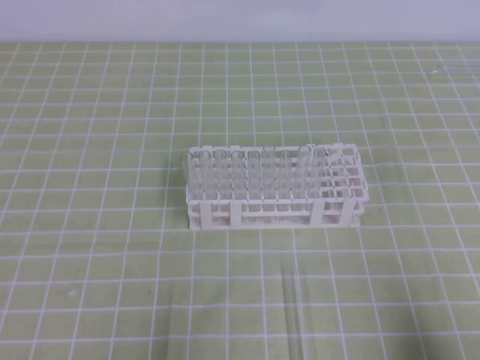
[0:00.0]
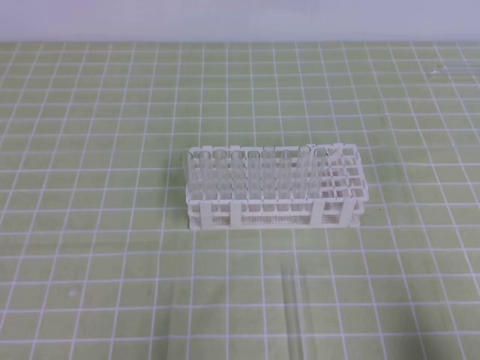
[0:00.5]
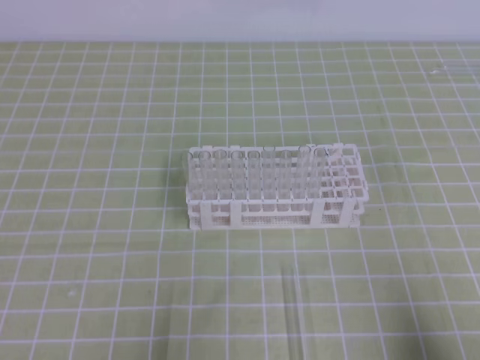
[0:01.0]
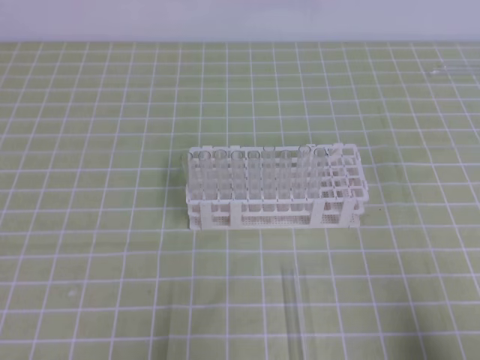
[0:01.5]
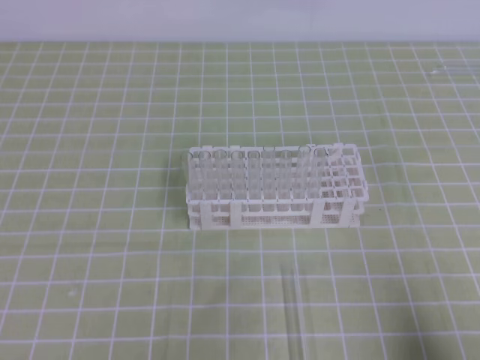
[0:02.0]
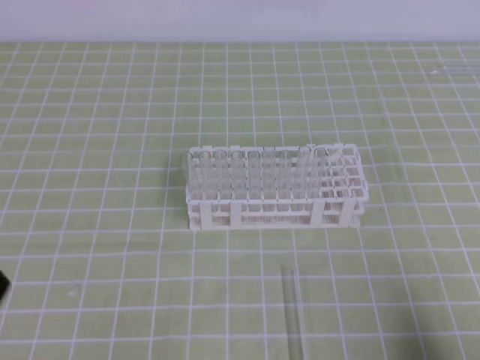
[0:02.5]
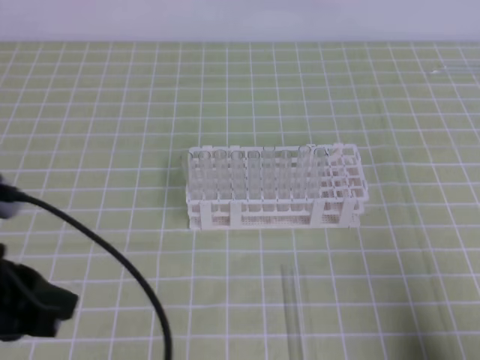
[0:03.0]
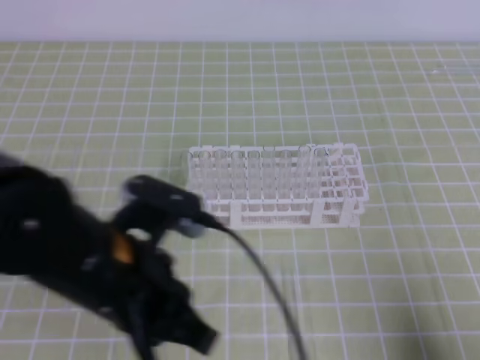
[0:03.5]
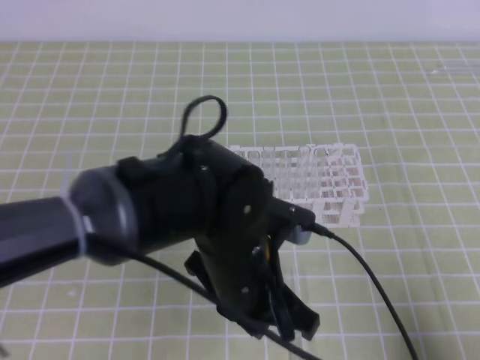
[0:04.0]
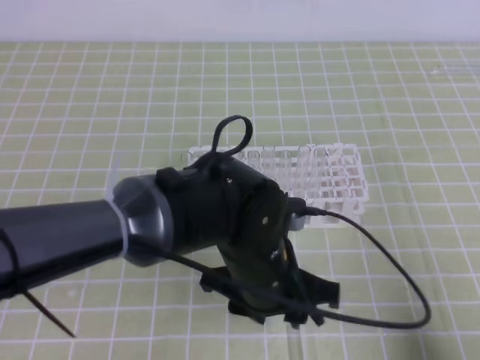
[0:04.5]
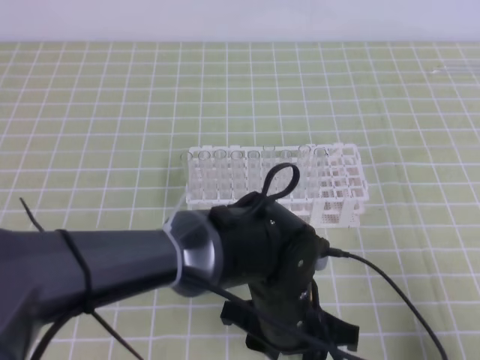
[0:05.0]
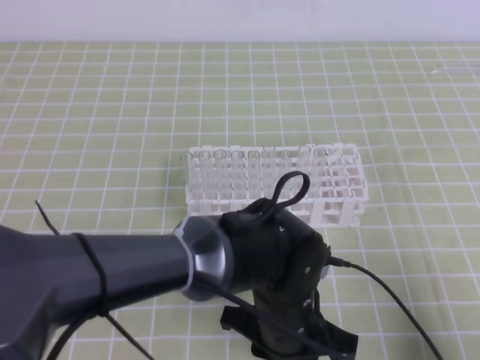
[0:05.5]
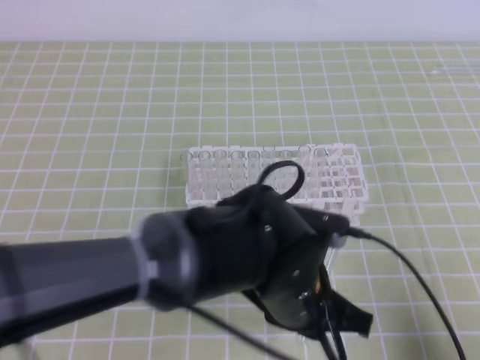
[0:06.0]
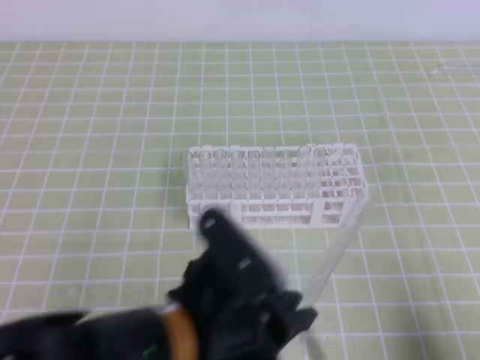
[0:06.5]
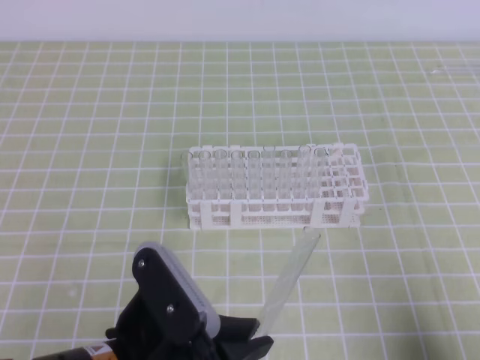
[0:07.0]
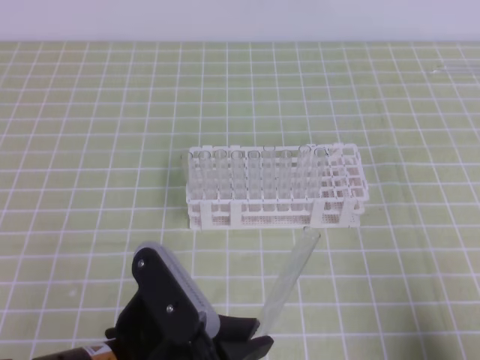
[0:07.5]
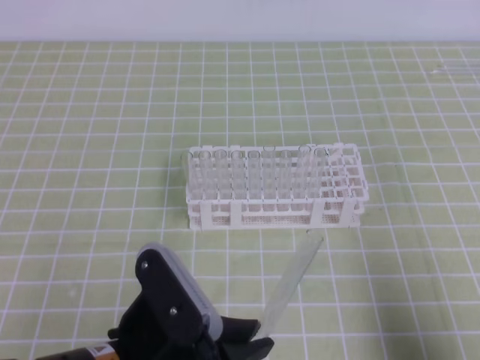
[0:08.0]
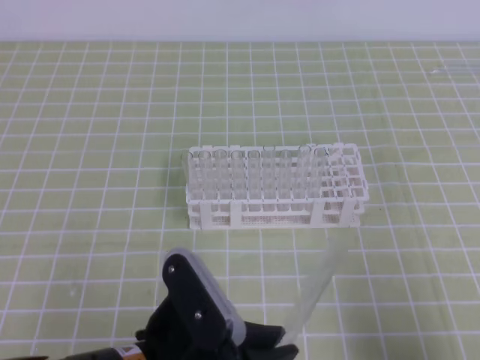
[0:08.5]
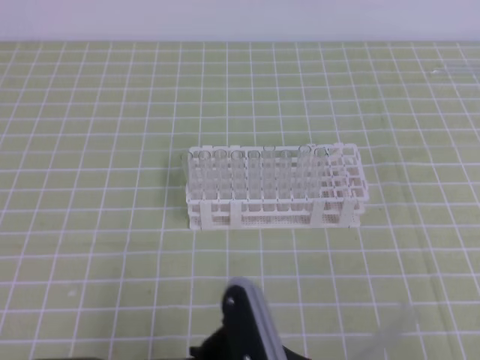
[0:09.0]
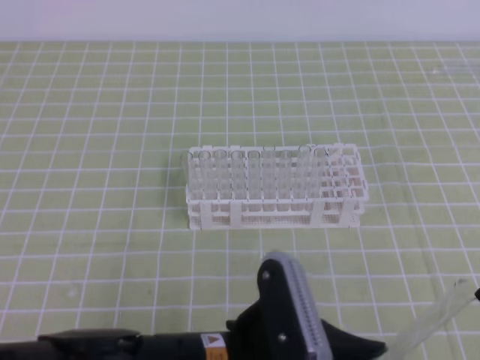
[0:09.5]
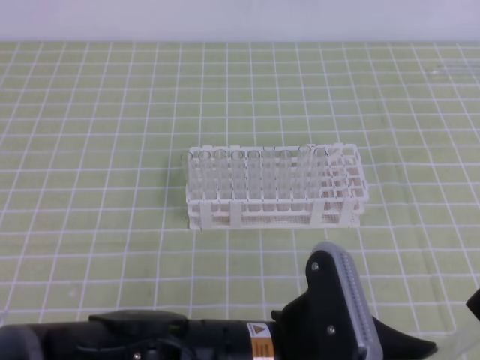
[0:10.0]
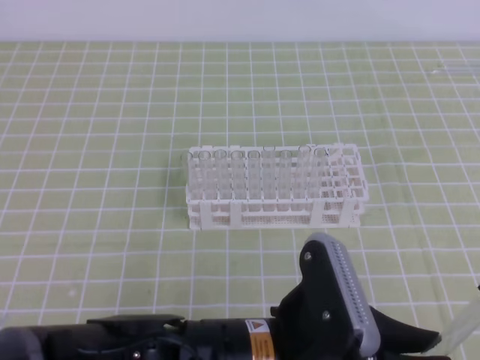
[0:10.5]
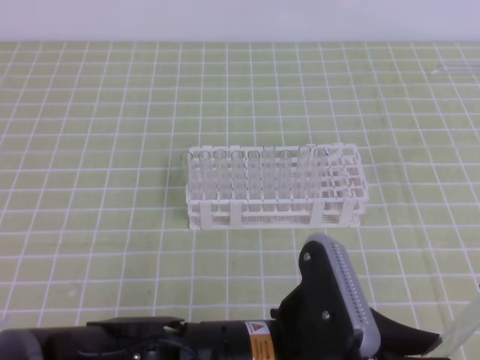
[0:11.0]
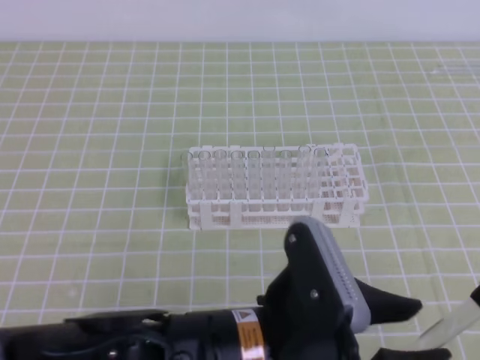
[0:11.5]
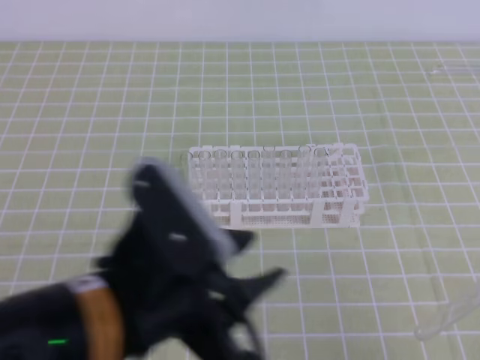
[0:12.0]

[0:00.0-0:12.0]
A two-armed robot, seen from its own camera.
0:02.0 to 0:04.0: The left gripper travels to the right and forward by approximately 30 cm.
0:04.0 to 0:06.0: The left gripper opens and closes again.
0:06.0 to 0:08.0: The left gripper moves to the left and backward, approximately 15 cm.
0:08.0 to 0:10.0: The right gripper goes roughly 10 cm upward, and opens its fingers. The left gripper goes roughly 10 cm to the right.
0:10.0 to 0:12.0: The right gripper closes up. The left gripper moves to the left and upward, some 10 cm, and opens up.

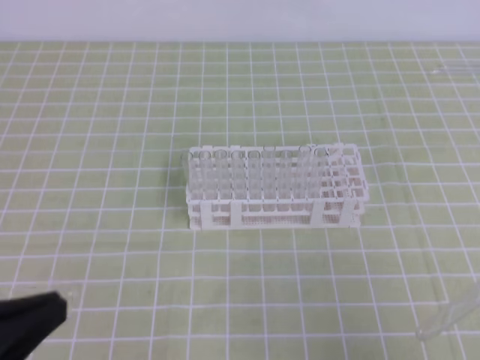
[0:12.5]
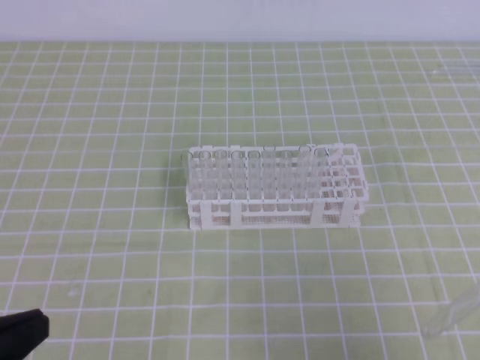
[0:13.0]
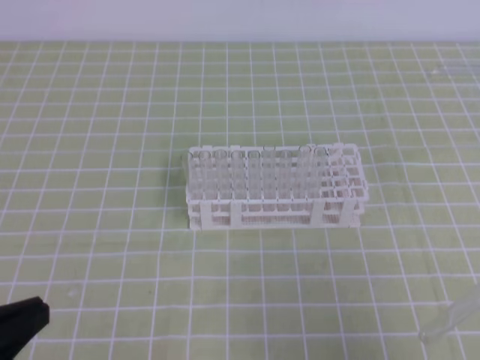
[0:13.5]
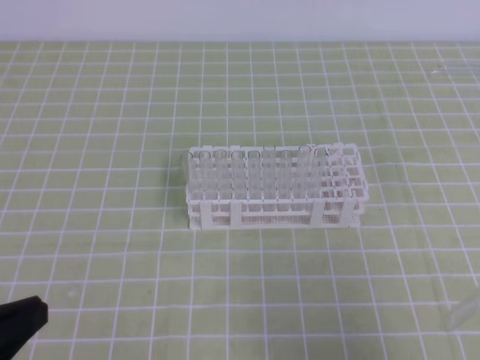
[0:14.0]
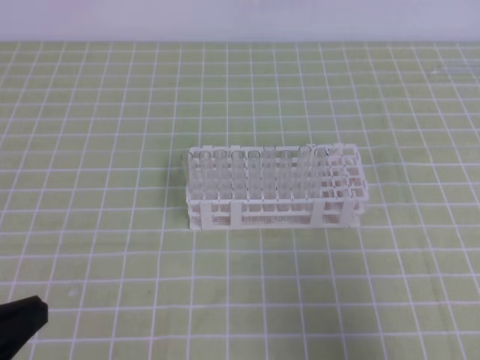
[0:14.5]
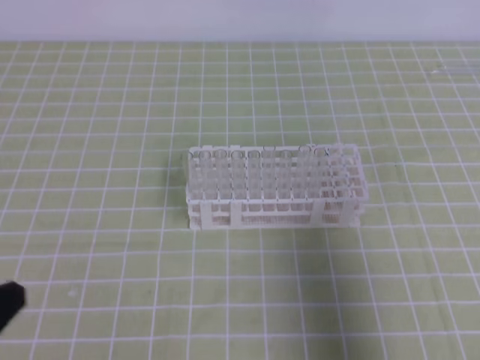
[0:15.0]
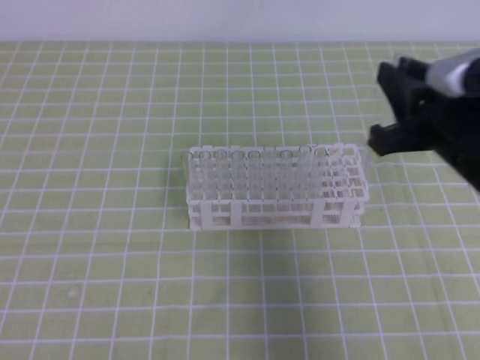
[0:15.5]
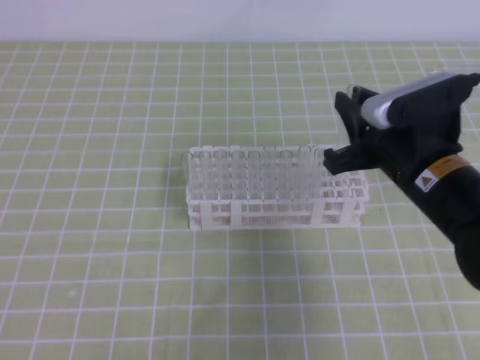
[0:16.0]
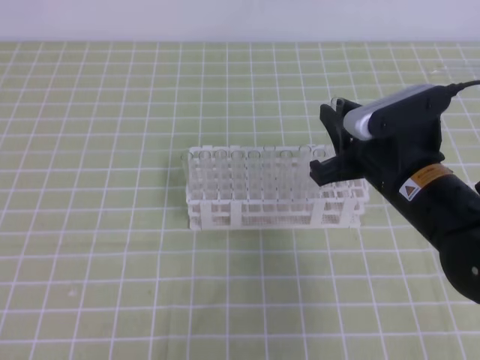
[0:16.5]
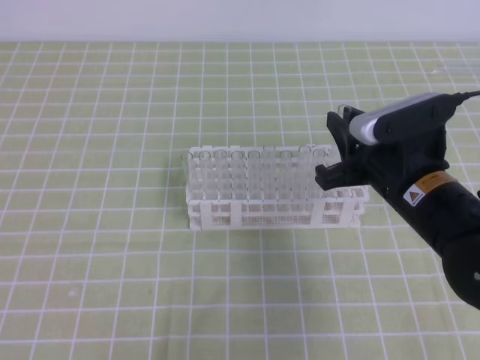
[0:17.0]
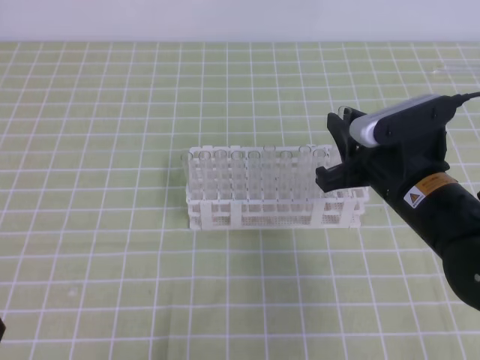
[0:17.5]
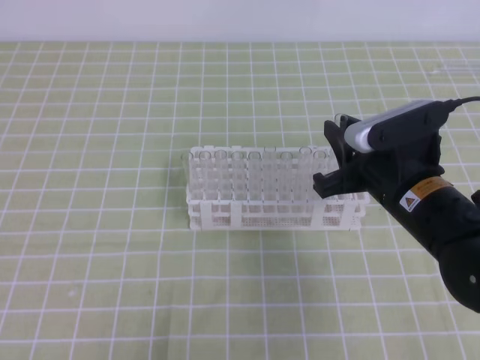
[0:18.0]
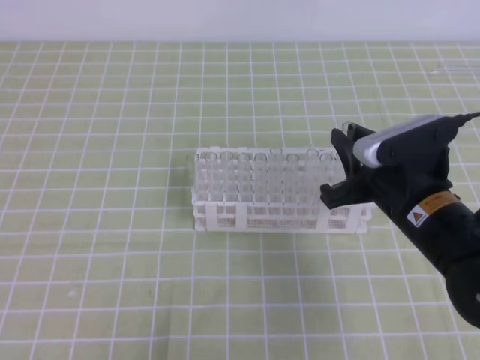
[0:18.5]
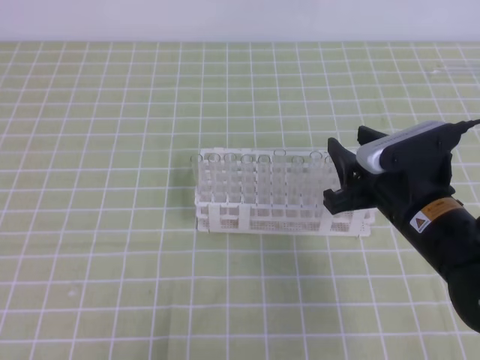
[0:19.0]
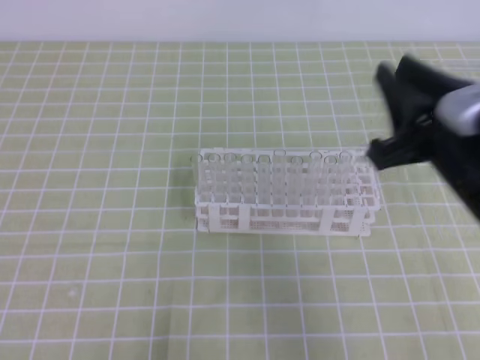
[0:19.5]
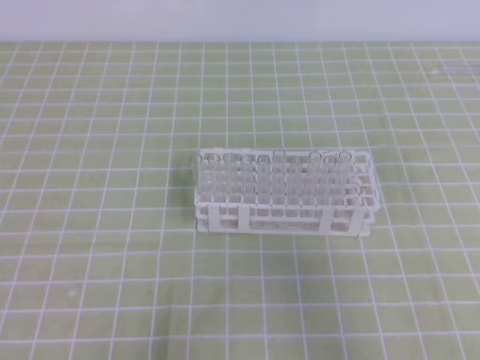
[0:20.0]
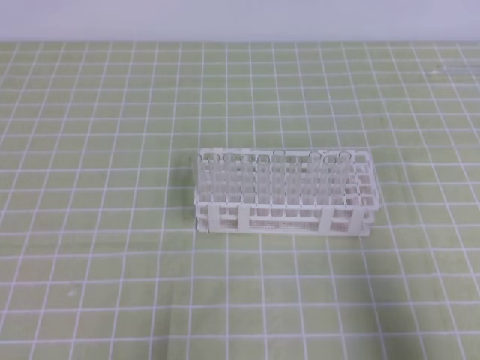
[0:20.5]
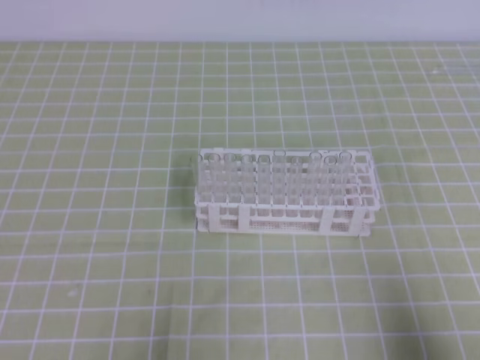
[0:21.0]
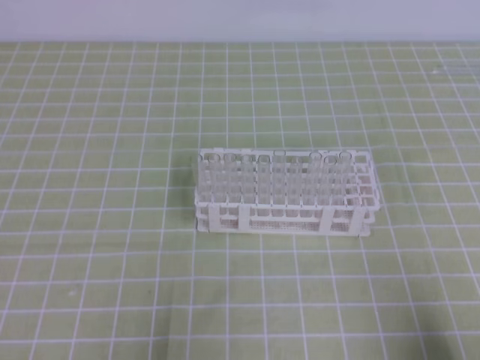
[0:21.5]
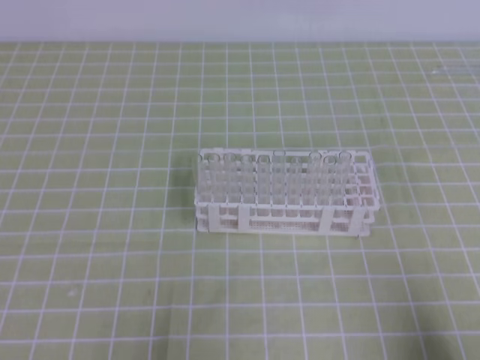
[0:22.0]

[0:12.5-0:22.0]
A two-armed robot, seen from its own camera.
0:12.5 to 0:14.5: The grippers move only a little.
0:14.5 to 0:16.5: The right gripper is displaced forward and to the left by some 25 cm; the left gripper is displaced downward by some 10 cm.
0:16.5 to 0:18.0: The grippers move only a little.
0:18.0 to 0:20.0: The right gripper heads backward, to the right and upward, covering approximately 20 cm, and opens, then closes once more.
0:20.0 to 0:22.0: The right gripper shifts approximately 20 cm downward, backward and to the right.
